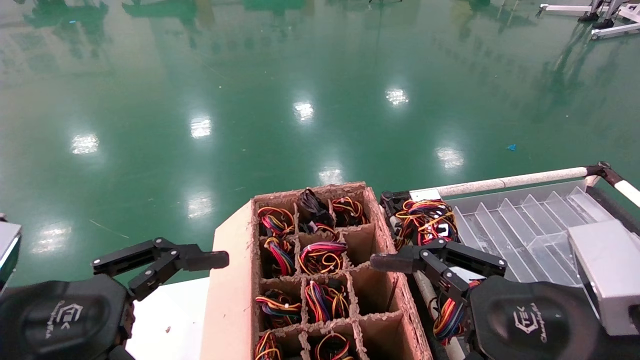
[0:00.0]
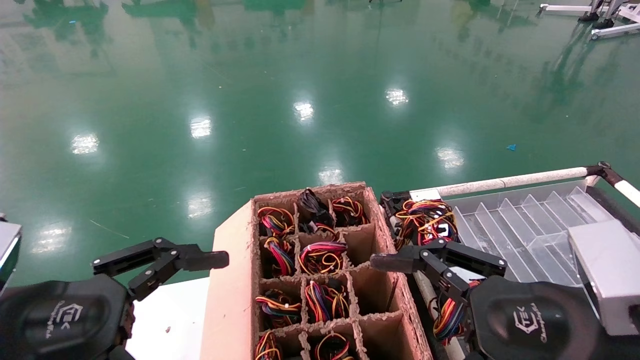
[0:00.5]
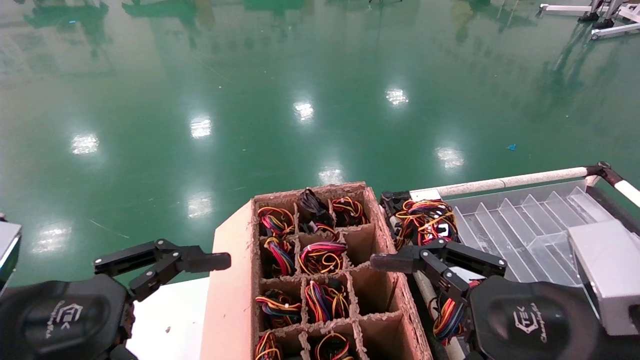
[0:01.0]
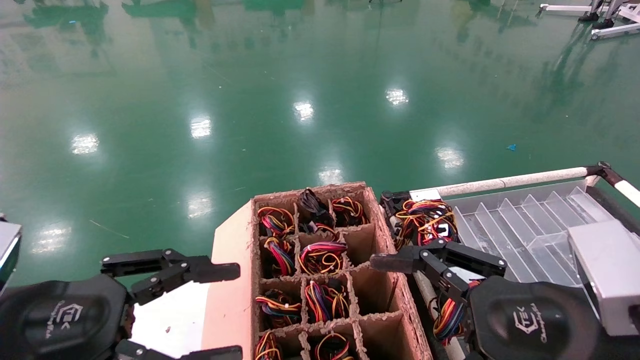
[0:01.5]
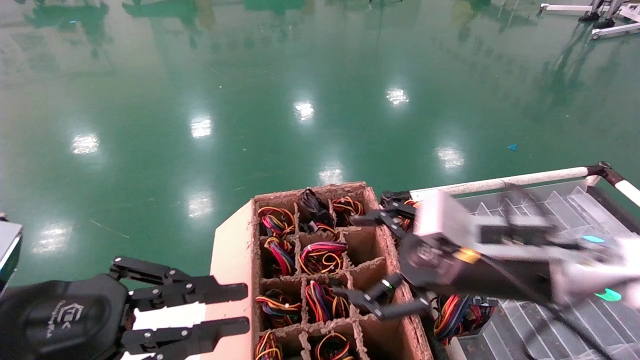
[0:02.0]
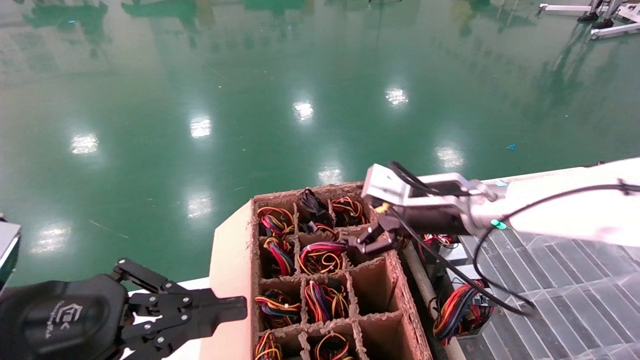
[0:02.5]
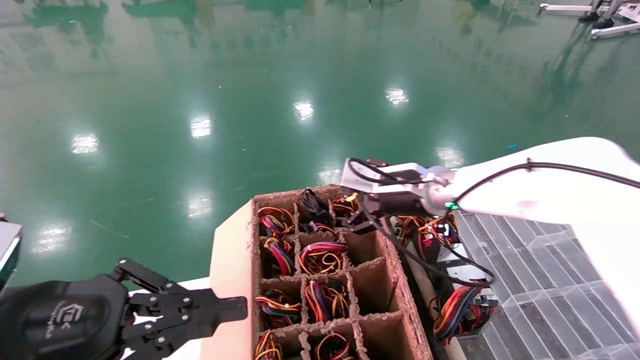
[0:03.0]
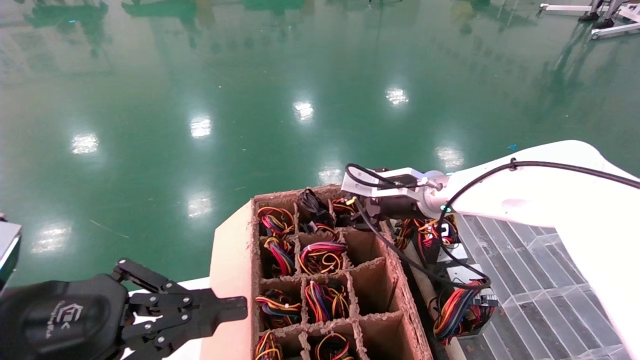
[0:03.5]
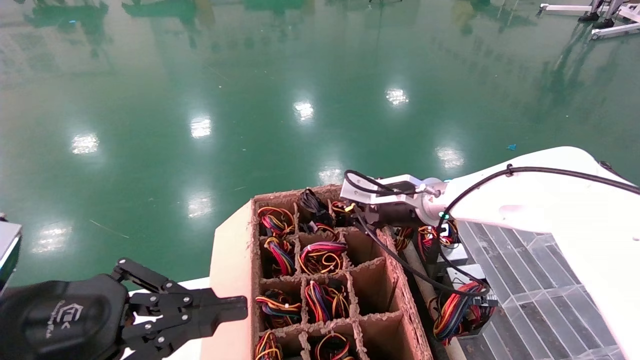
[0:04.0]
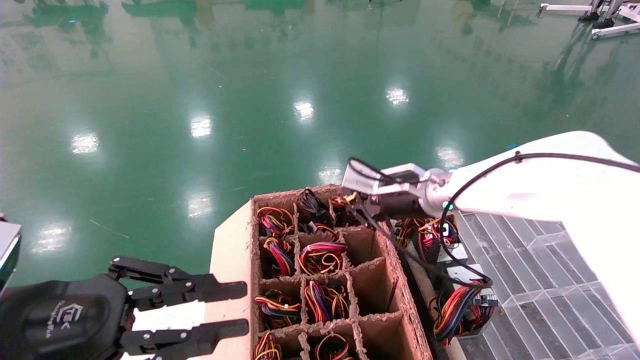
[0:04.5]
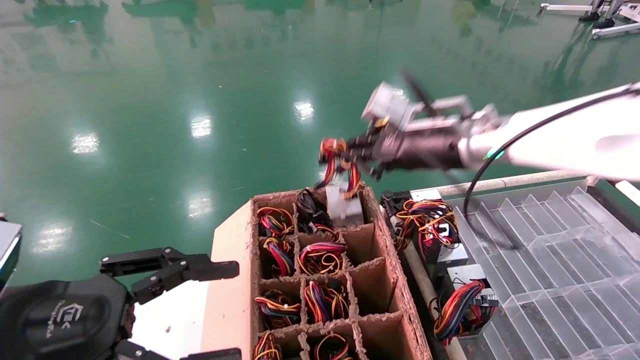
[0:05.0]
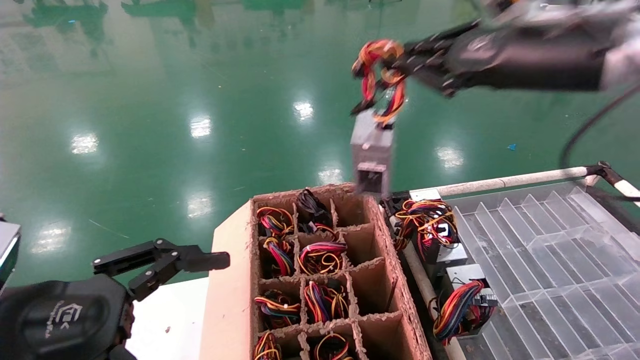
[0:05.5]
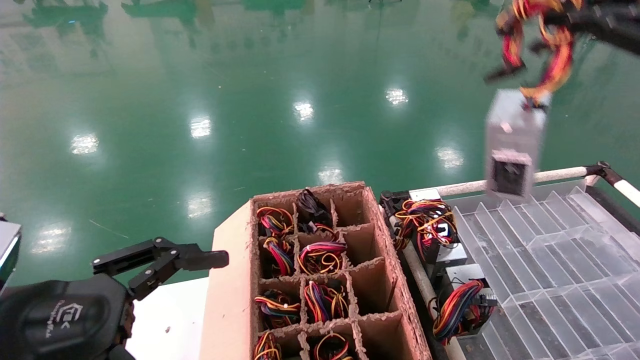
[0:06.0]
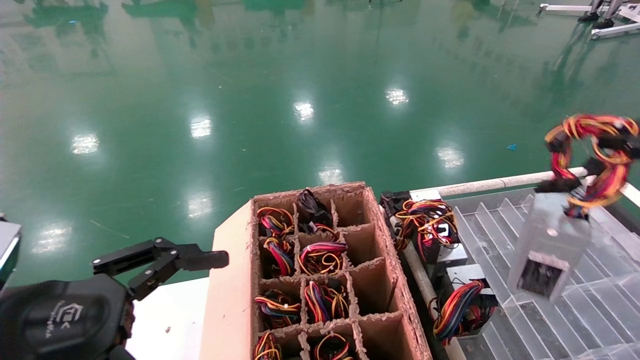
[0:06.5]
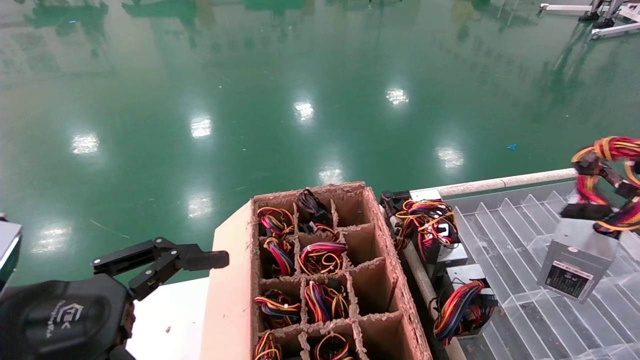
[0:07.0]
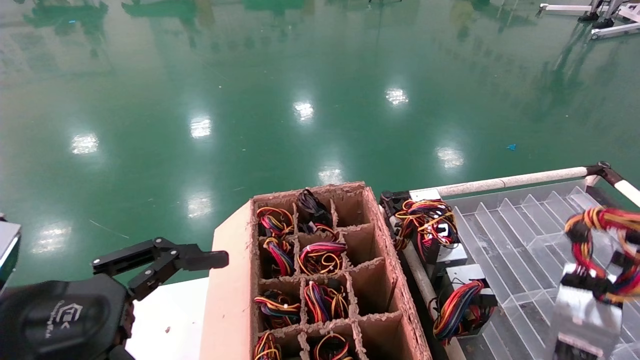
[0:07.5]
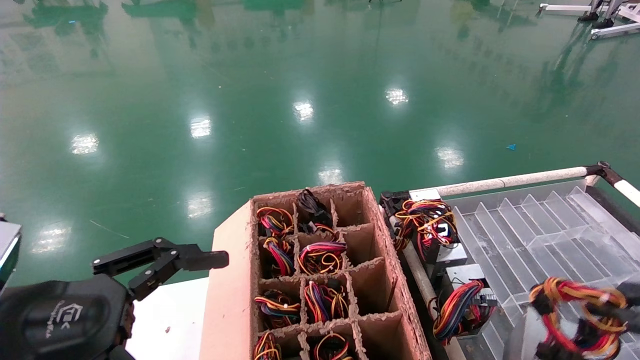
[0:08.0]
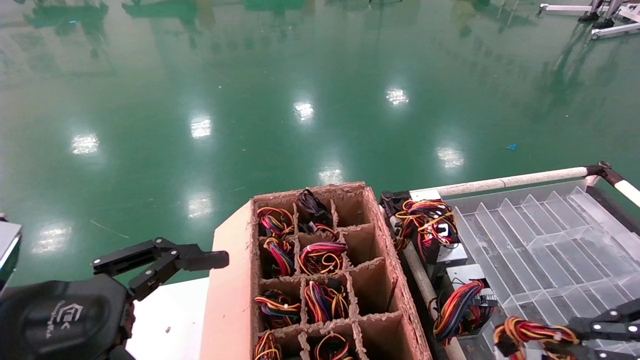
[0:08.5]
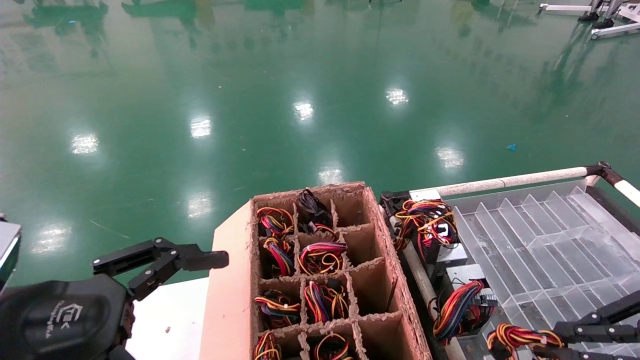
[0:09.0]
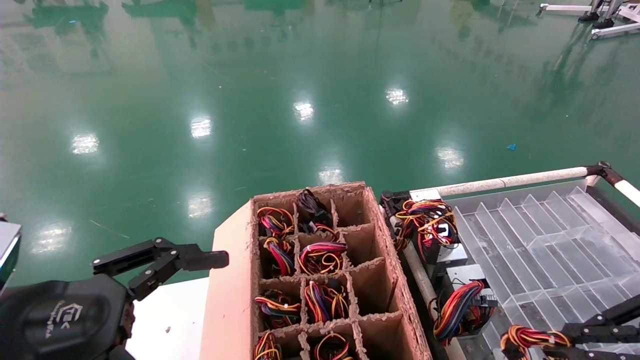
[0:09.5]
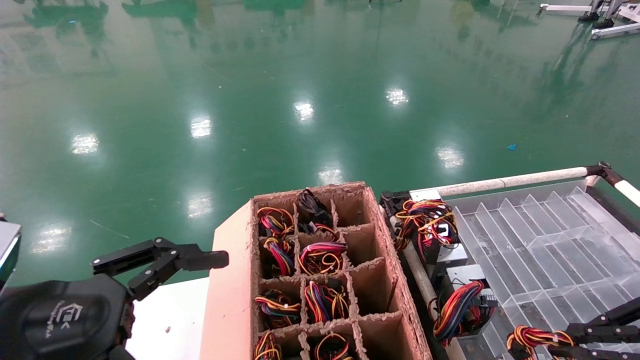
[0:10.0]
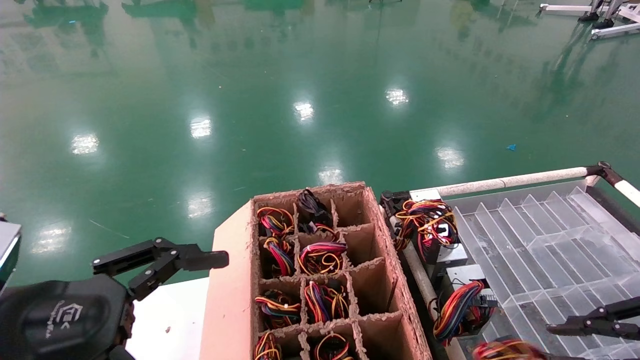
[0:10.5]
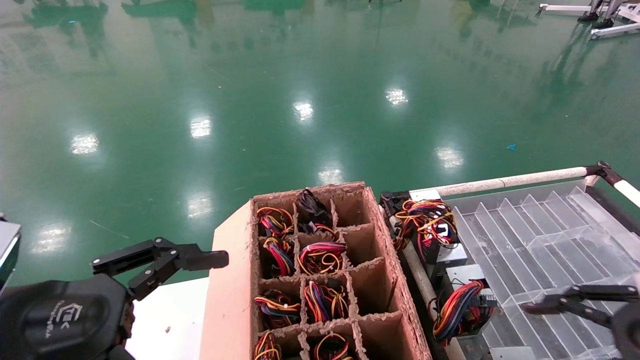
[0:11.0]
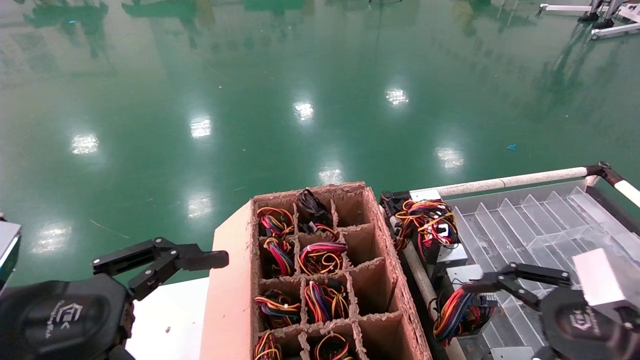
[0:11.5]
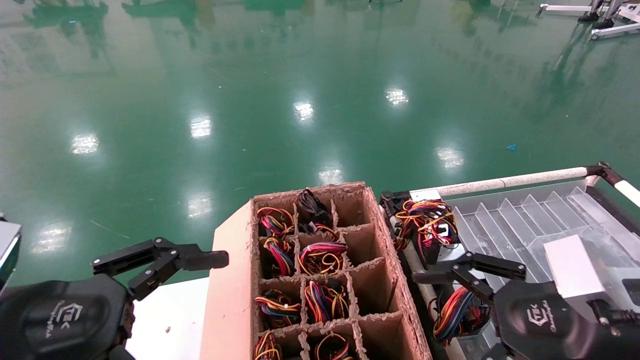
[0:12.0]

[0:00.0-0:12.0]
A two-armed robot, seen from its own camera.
Step, 0:01.5 to 0:04.0: Grab and lift the power supply from the large box.
Step, 0:04.5 to 0:10.0: Place the power supply on the operating table.
0:00.0 to 0:02.0: The right gripper travels forward by roughly 10 cm; the left gripper closes up.
0:02.0 to 0:04.0: The right gripper travels forward by about 15 cm, and closes its fingers.
0:04.0 to 0:06.0: The right gripper heads backward, to the right and upward, covering roughly 40 cm, while the left gripper opens up.
0:06.0 to 0:08.0: The right gripper heads downward, covering roughly 20 cm.
0:08.0 to 0:10.0: The right gripper travels forward by approximately 5 cm.
0:10.0 to 0:12.0: The right gripper goes approximately 15 cm to the left, and opens.
